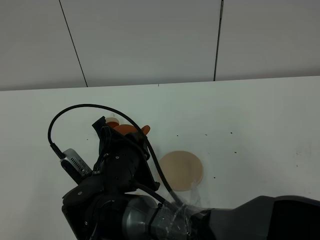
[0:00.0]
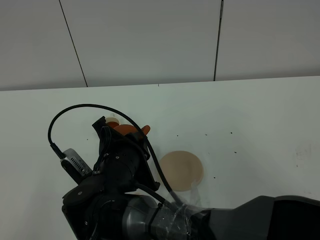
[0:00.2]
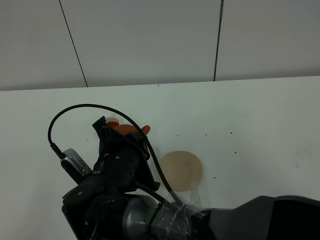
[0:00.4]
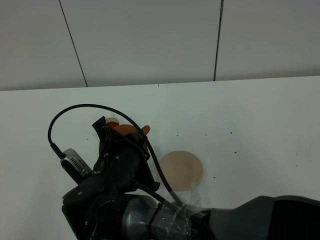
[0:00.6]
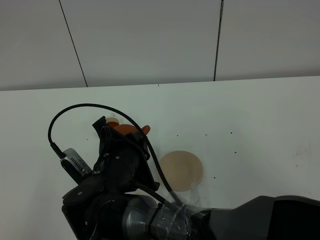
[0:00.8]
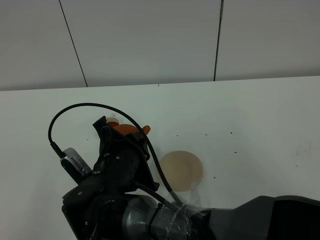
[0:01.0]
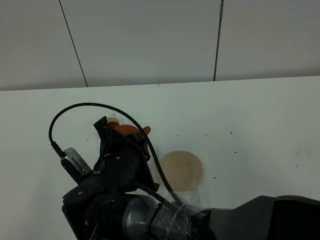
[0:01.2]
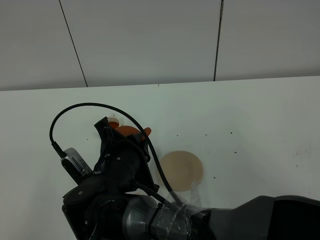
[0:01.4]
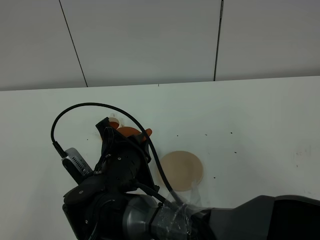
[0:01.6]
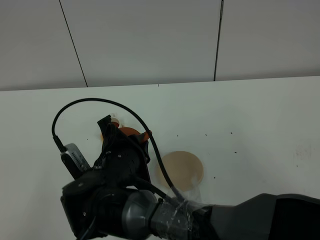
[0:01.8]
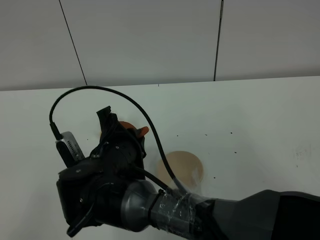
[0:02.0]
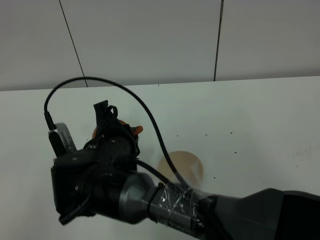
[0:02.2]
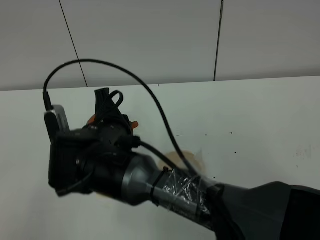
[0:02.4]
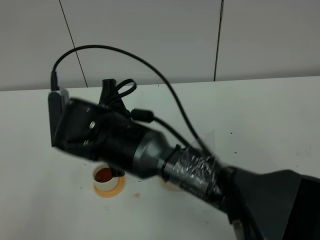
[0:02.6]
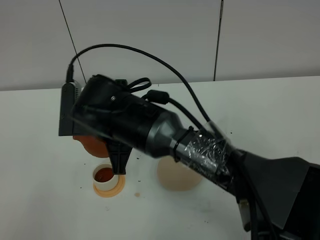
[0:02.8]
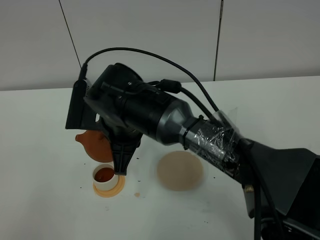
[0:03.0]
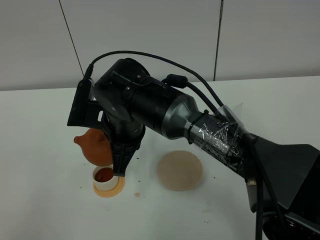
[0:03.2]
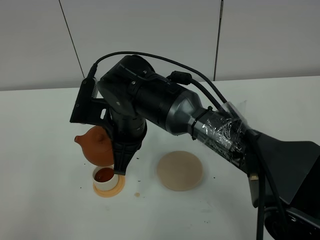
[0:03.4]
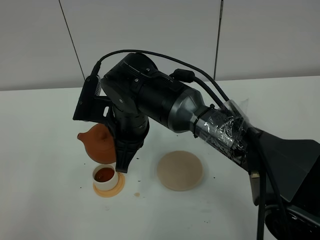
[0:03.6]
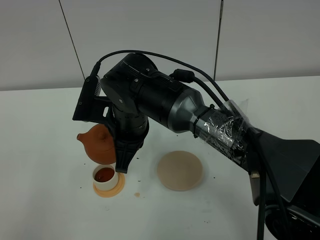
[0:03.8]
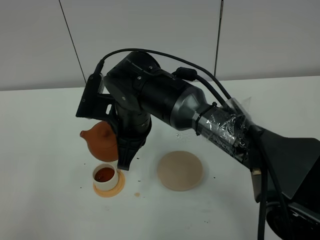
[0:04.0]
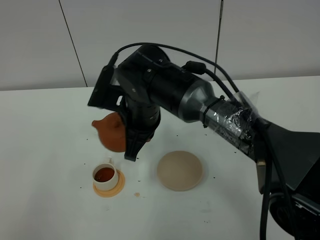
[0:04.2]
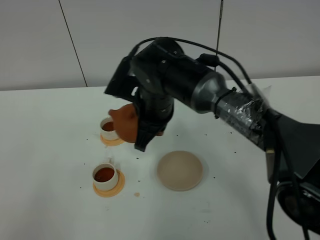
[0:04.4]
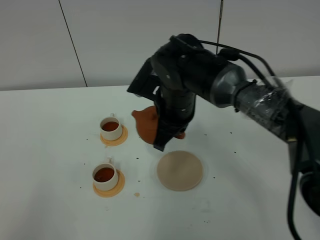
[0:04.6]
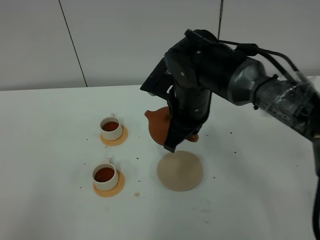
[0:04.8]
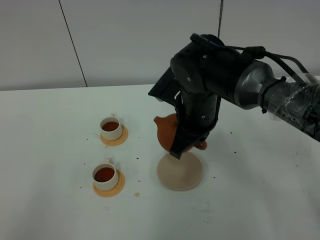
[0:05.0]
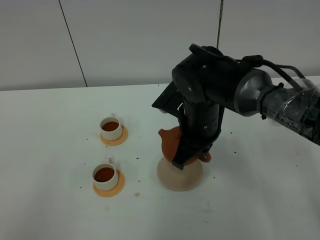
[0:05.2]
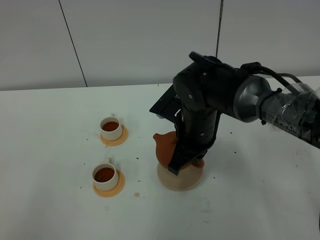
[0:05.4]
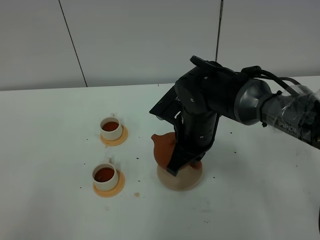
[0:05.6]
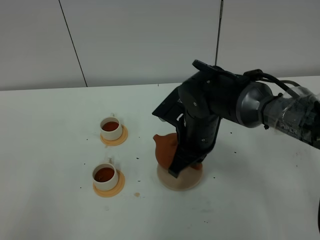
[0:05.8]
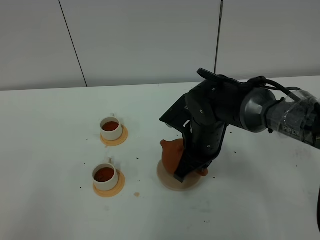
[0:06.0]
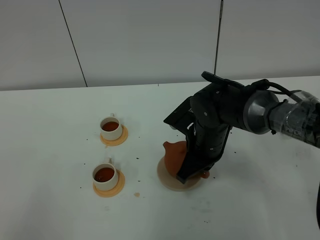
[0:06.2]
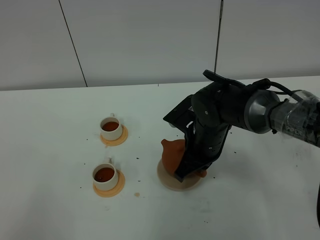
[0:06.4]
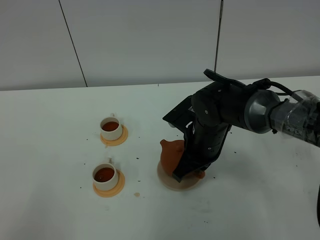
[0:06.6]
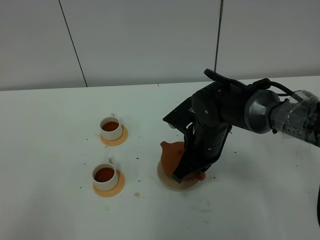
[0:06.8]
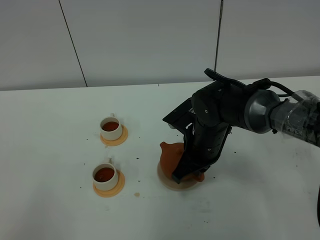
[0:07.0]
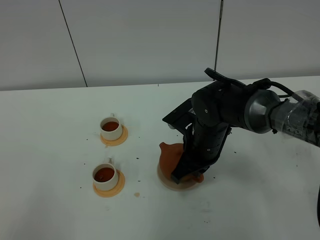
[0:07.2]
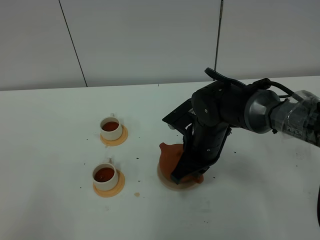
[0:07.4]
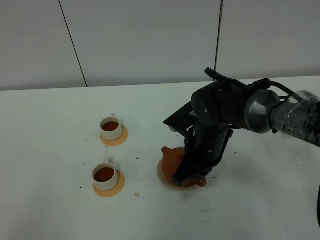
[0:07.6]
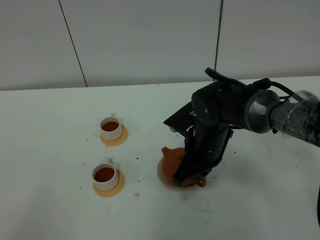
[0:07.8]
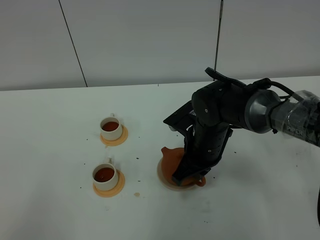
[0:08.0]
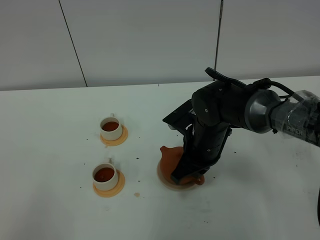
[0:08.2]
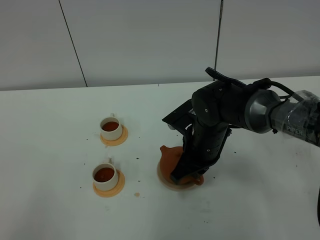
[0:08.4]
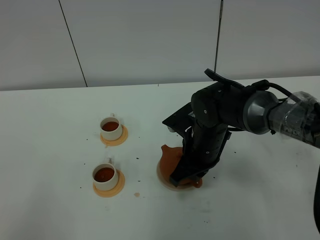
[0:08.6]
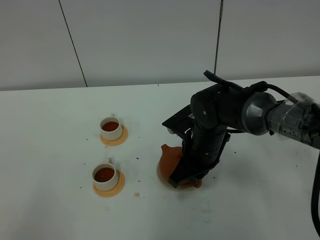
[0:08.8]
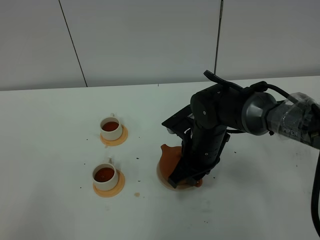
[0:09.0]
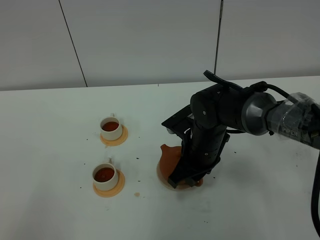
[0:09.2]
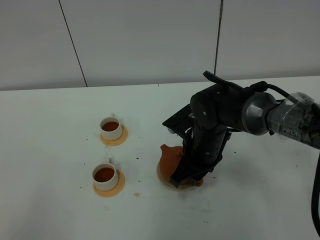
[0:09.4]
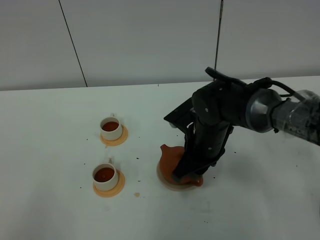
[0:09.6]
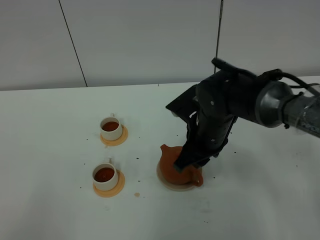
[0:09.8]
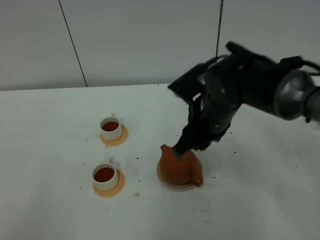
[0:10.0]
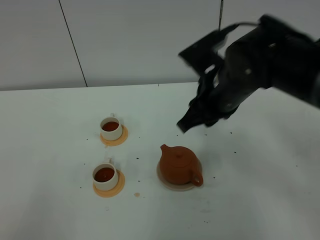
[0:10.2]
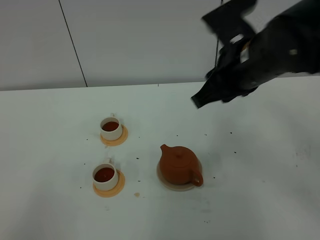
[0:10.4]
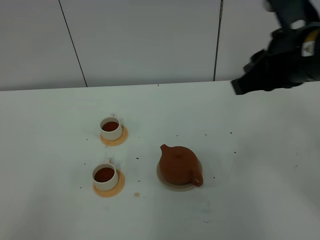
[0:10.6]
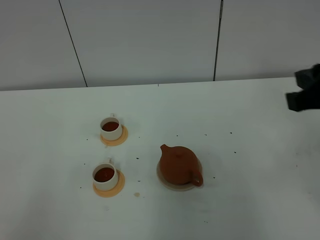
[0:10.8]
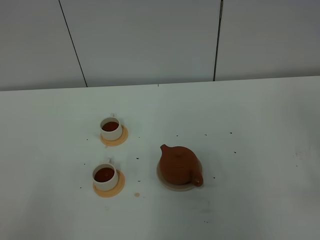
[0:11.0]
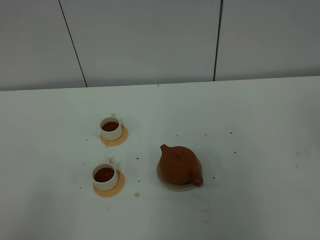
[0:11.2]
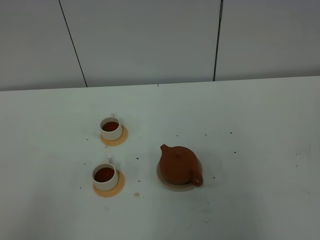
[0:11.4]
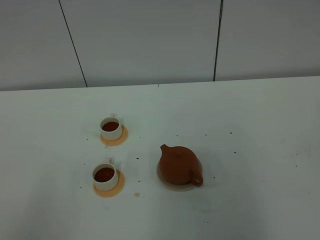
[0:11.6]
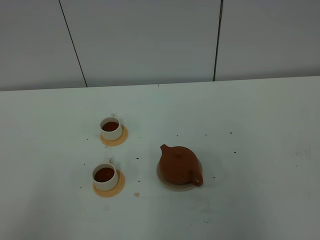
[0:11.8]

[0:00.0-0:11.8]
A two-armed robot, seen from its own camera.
Task of the whole recording: grasp the brown teapot and pour the tea into the two white teacups one by one, put the brown teapot back in its original place.
Step, 0:00.0 to 0:03.2: Pour tea into the teacup with the right gripper.
0:00.0 to 0:01.4: Neither gripper changes place.
0:01.4 to 0:03.0: The right gripper shifts some 10 cm upward and forward.
0:03.0 to 0:04.4: The right gripper is displaced to the right and forward by some 10 cm.
0:04.4 to 0:06.0: The right gripper heads to the right and downward, covering about 10 cm.
0:06.0 to 0:07.4: There are only small adjustments of the grippers.
0:07.4 to 0:08.8: The right gripper opens up.
0:08.8 to 0:10.4: The right gripper moves upward, about 20 cm, and opens its fingers.
0:10.4 to 0:11.8: The right gripper moves backward and to the right, approximately 35 cm.

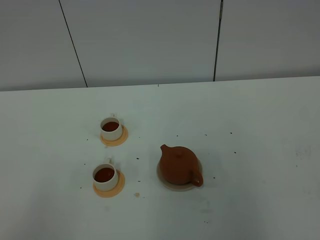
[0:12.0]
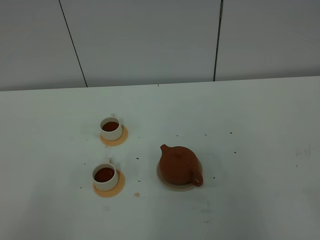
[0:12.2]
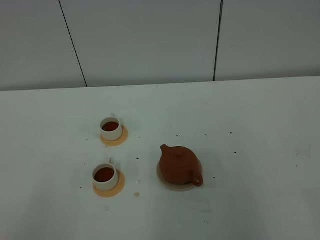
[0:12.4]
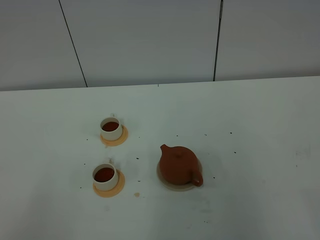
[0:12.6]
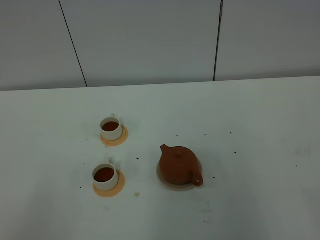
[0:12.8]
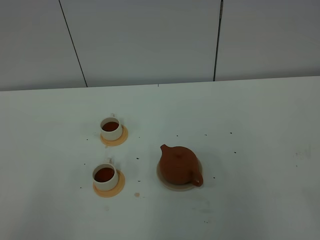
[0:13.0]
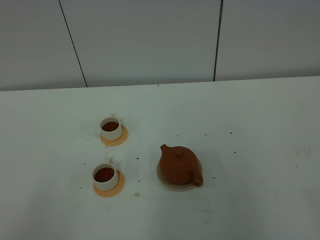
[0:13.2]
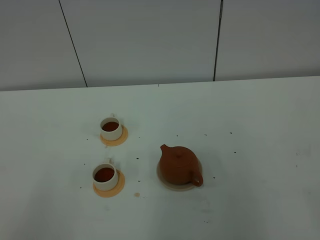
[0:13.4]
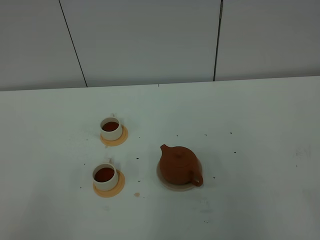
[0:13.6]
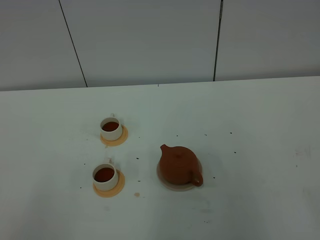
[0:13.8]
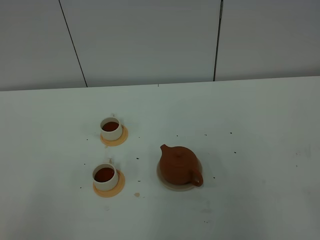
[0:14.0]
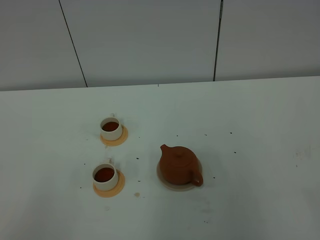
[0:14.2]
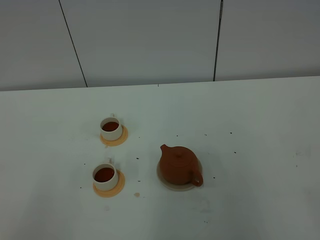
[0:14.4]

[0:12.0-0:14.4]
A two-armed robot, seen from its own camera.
Task of the whole recording: grasp the brown teapot and pour the tea into the two white teacups one by one, put the brown teapot back in its original place.
0:13.2 to 0:14.4: Both grippers stay about where they are.

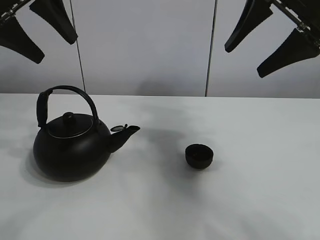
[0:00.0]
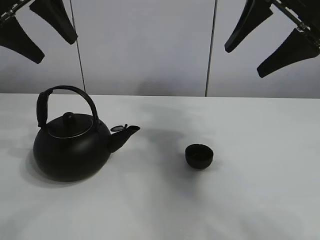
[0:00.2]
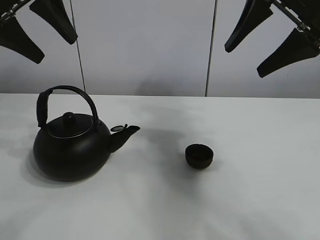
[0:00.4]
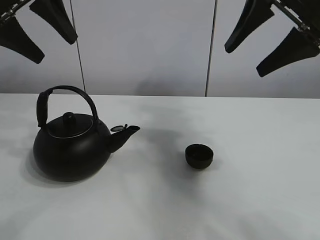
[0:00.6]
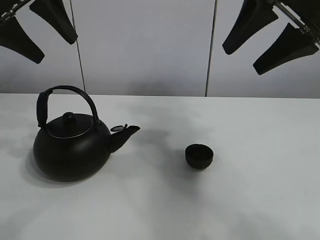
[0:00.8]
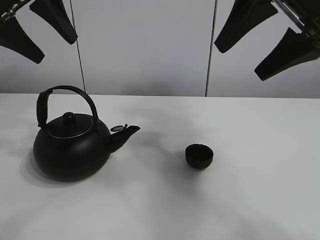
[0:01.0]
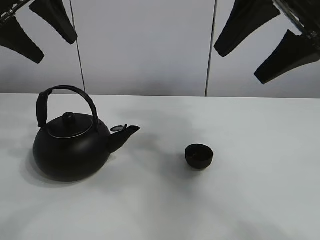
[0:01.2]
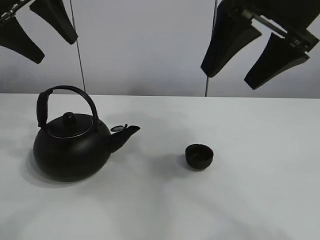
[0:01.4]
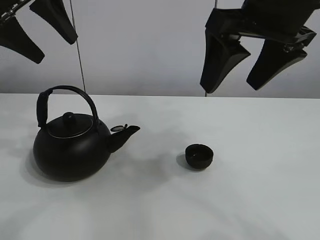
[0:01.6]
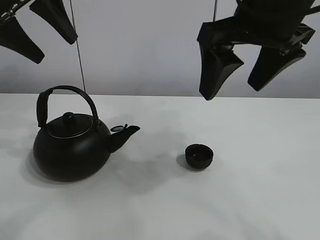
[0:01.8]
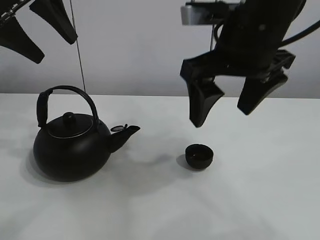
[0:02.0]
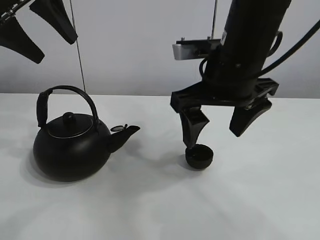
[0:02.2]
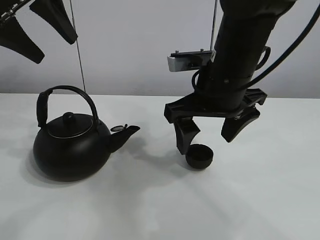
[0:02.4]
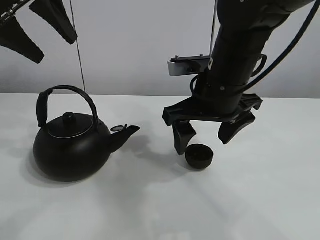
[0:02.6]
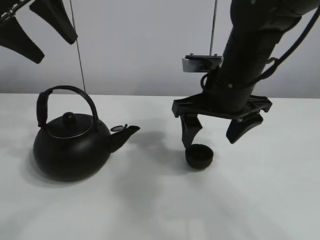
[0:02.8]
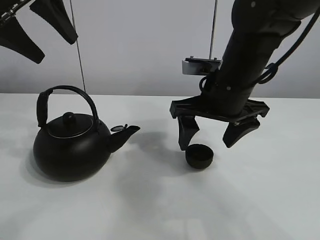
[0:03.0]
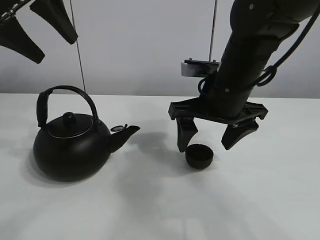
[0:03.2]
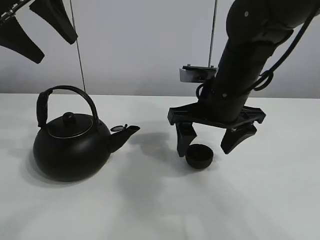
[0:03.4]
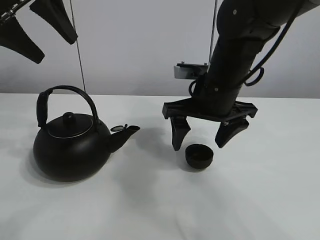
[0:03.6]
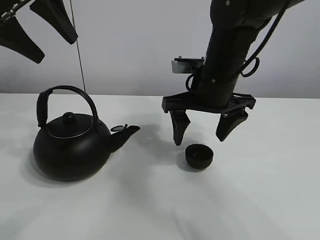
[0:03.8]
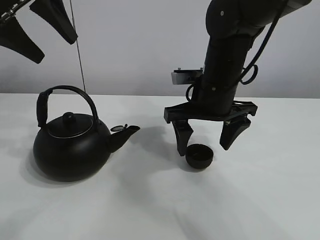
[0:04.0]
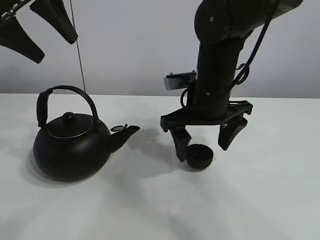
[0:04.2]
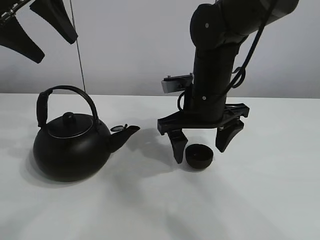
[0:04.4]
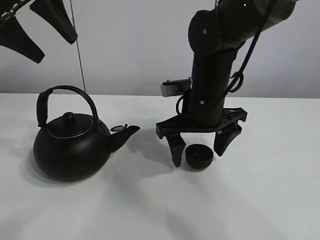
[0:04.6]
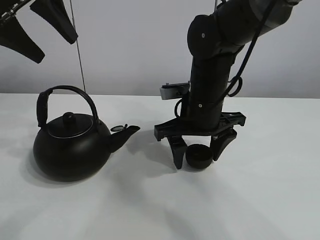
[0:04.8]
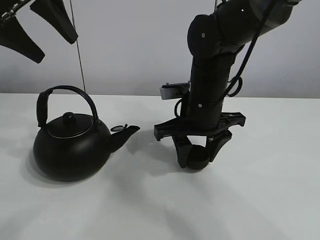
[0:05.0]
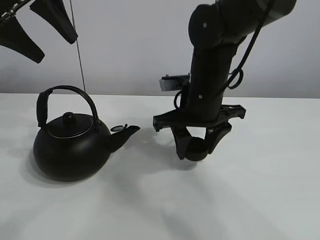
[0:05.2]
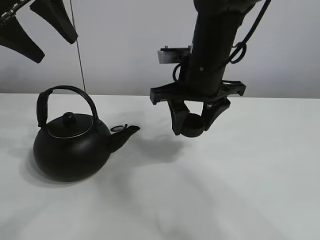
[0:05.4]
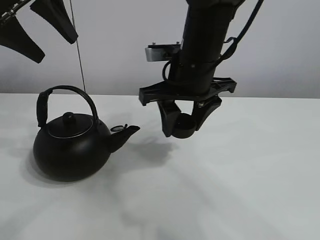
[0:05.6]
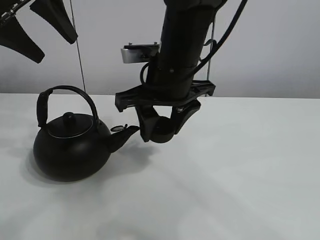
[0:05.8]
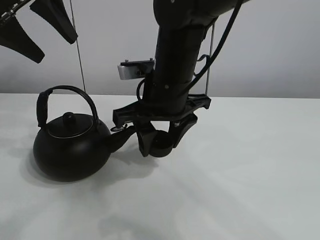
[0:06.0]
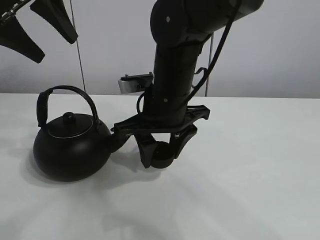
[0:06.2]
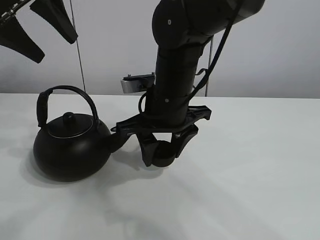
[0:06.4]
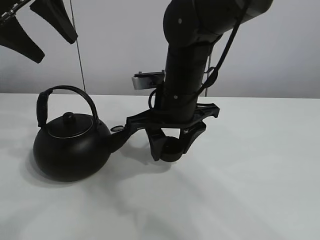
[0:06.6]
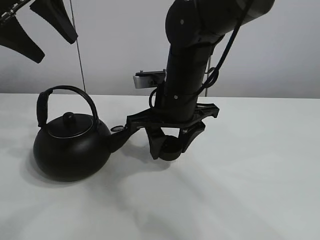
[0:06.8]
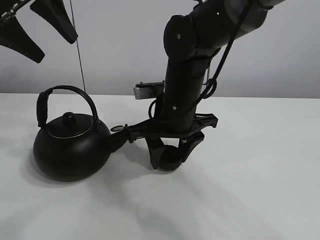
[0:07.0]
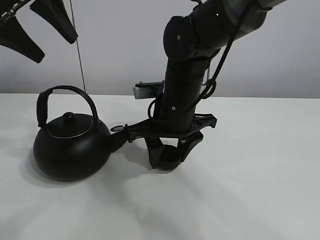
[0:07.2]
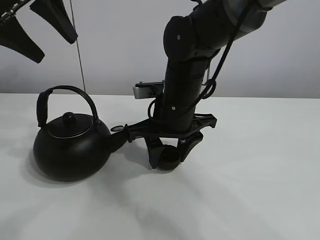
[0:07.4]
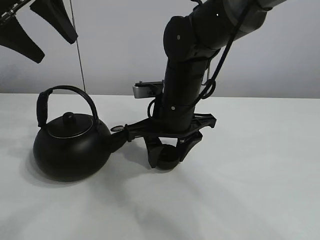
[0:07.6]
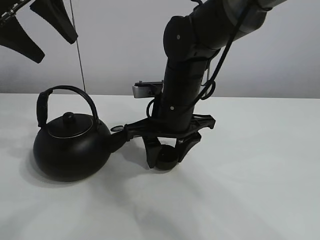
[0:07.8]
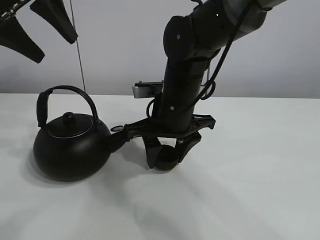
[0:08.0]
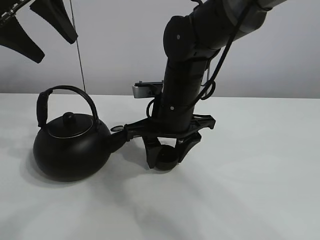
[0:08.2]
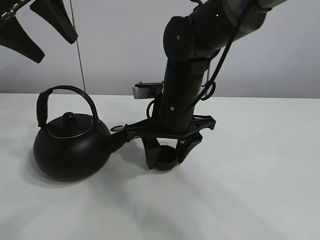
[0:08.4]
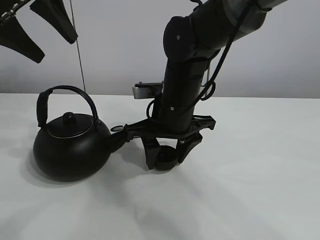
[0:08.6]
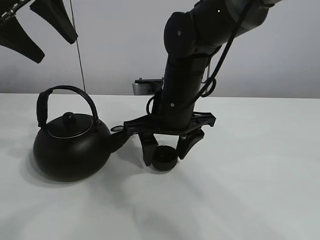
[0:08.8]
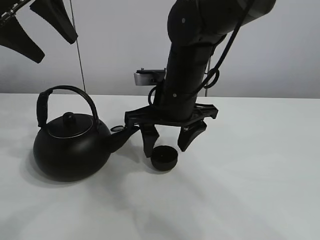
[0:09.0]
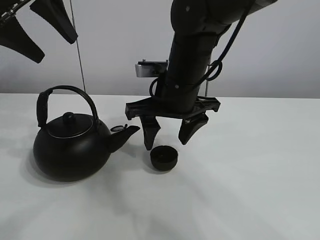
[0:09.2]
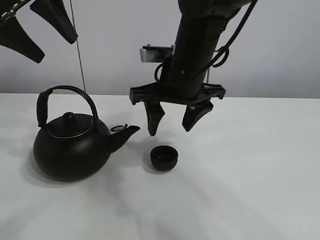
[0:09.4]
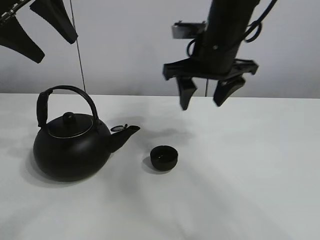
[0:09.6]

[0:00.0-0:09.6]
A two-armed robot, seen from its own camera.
Task of the whole recording: pour tea into the teacup.
Step, 0:00.0 to 0:05.0: Pick up the teacup with the right gripper.
Step, 0:05.2 to 0:08.6: Place the teacup in the center of view with the right gripper.
0:01.6 to 0:03.2: The right gripper moves downward and forward, some 15 cm.
0:03.2 to 0:04.8: The right gripper shifts by about 5 cm.
0:04.8 to 0:06.4: The right gripper moves to the left, roughly 5 cm, and closes up.
0:06.4 to 0:08.0: The grippers make only small movements.
0:08.0 to 0:09.6: The right gripper heads upward and to the right, covering about 10 cm, and opens its fingers.
